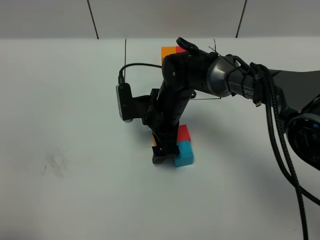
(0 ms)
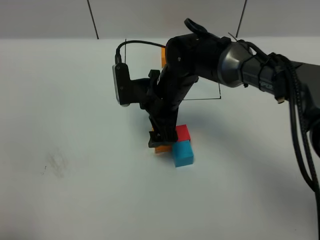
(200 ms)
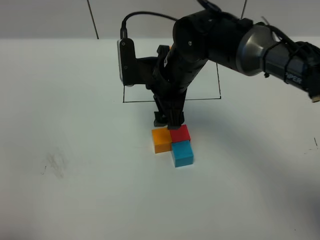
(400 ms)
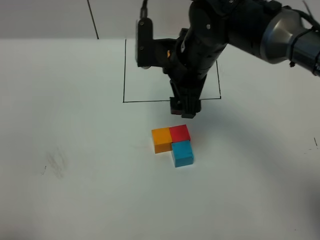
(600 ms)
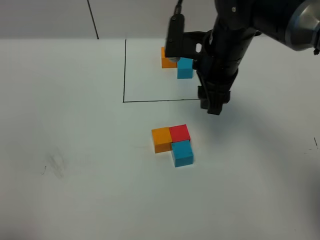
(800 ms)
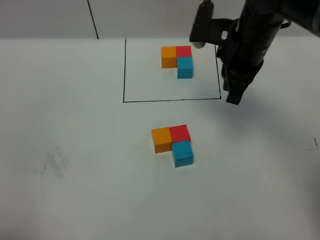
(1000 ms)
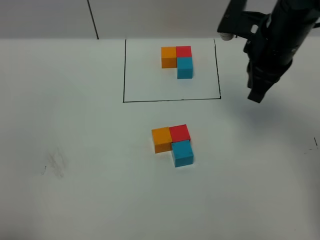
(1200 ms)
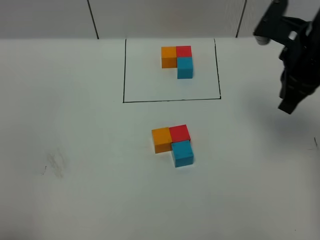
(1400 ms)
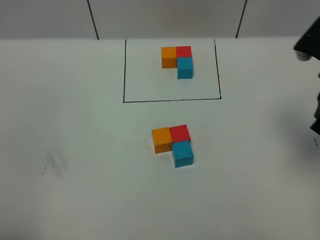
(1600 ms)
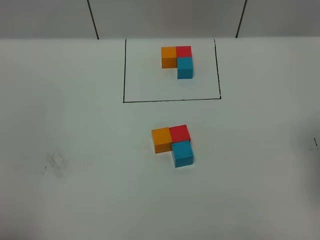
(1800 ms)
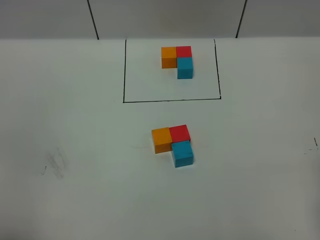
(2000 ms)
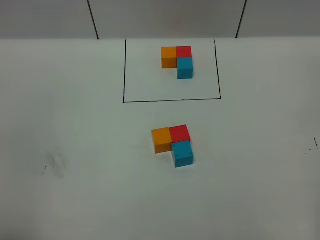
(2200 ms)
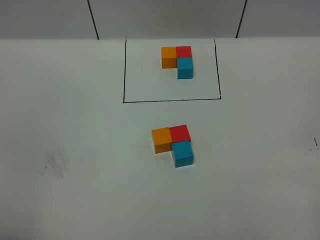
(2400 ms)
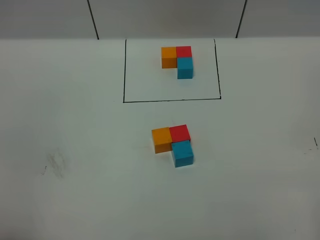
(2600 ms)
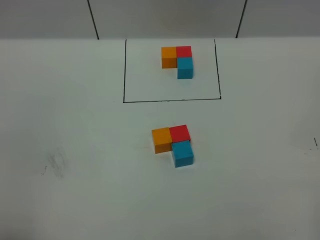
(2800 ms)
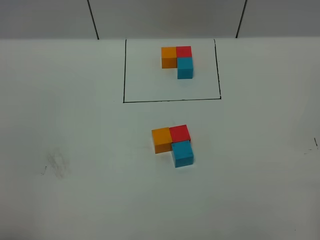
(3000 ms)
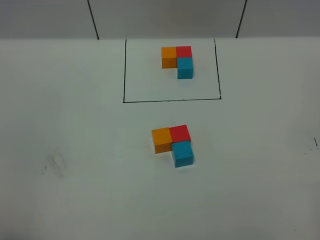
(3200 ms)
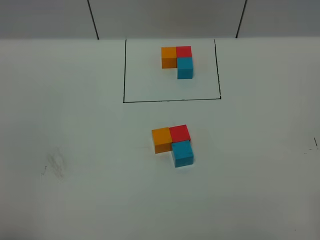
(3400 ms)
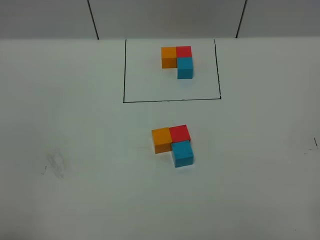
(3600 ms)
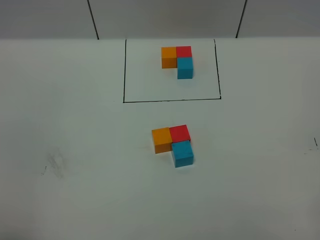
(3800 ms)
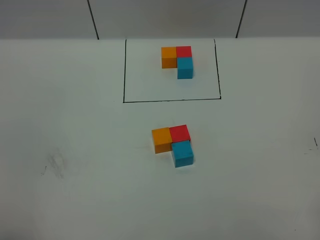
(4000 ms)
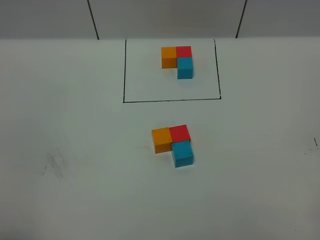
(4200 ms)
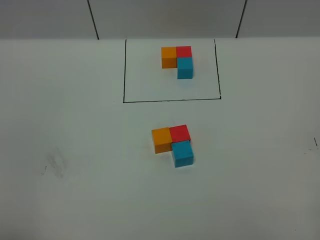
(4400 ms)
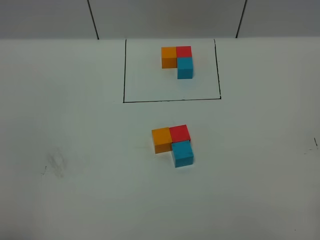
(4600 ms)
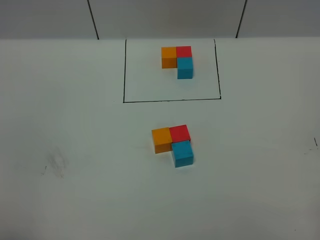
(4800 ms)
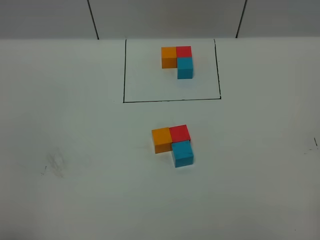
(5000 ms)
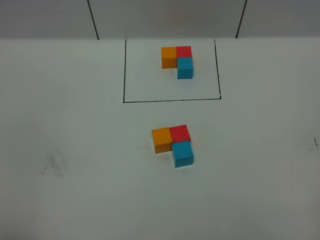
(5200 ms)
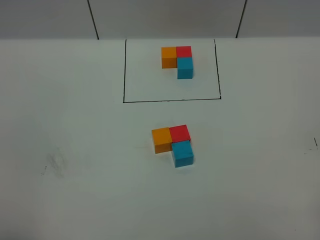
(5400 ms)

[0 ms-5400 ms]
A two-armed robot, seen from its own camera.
Task of the whole recording: According to the building block template in front, assemble the scattered blocks together.
0 ms to 1400 ms: The right gripper heads to the right and upward, covering approximately 25 cm, and closes up.
1400 ms to 2800 ms: The right gripper heads backward, covering some 25 cm.
4000 ms to 5400 ms: Both grippers stay about where they are.
